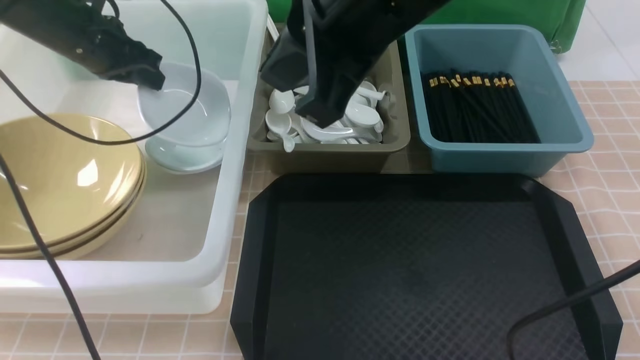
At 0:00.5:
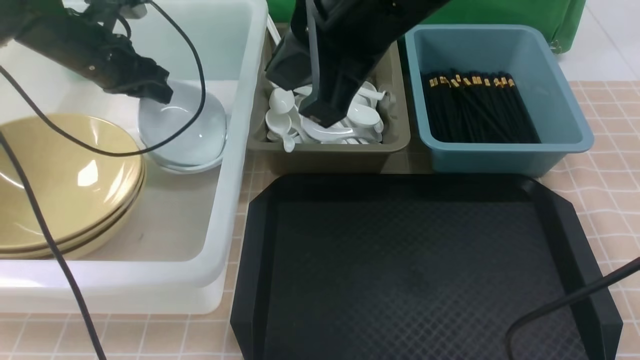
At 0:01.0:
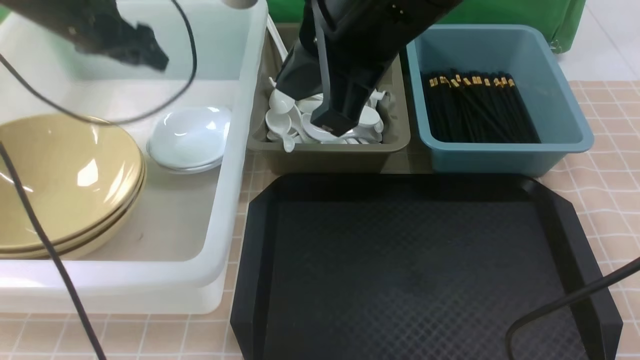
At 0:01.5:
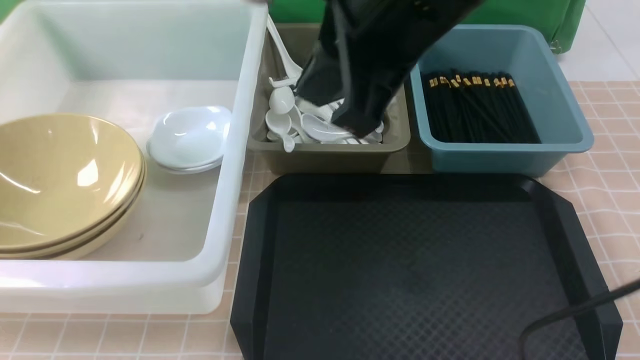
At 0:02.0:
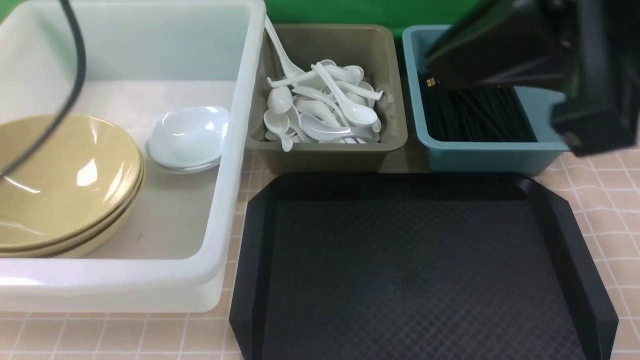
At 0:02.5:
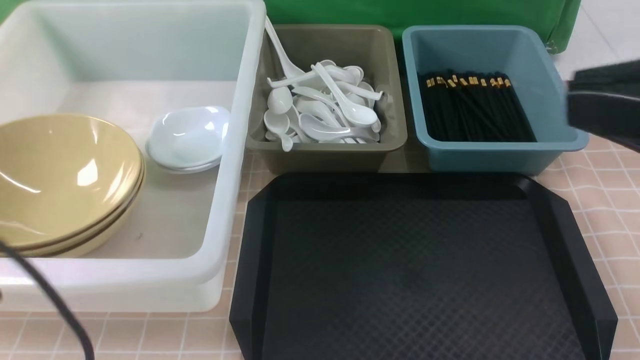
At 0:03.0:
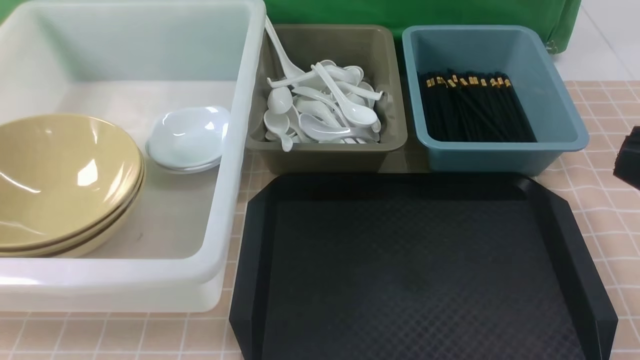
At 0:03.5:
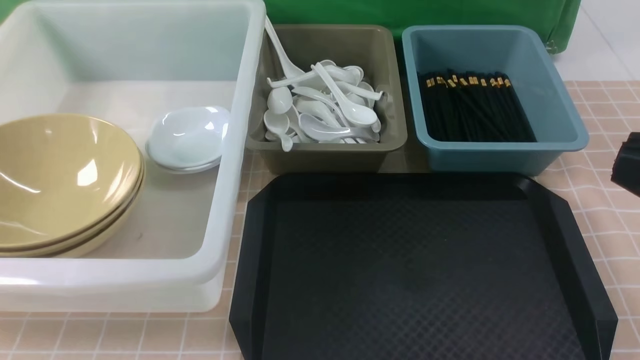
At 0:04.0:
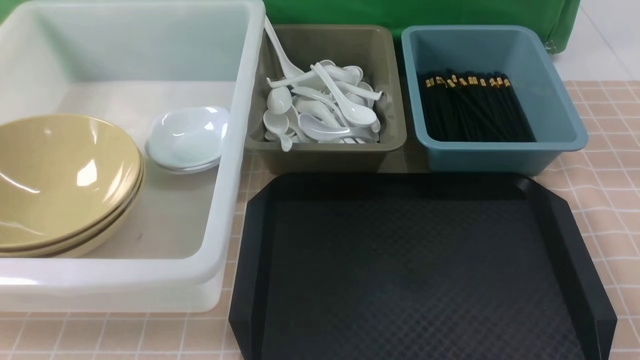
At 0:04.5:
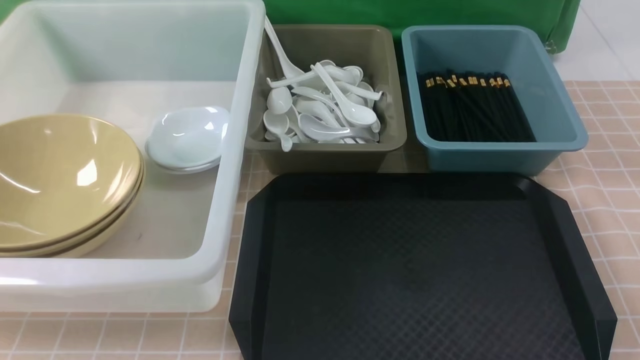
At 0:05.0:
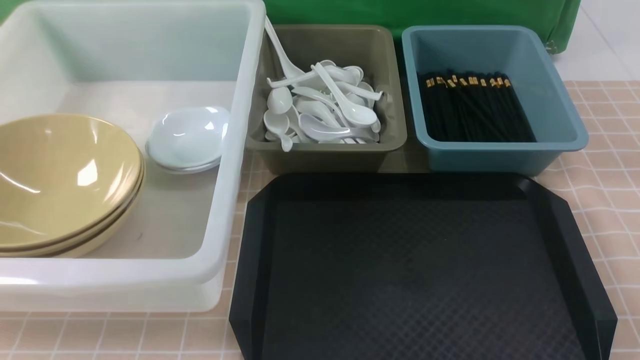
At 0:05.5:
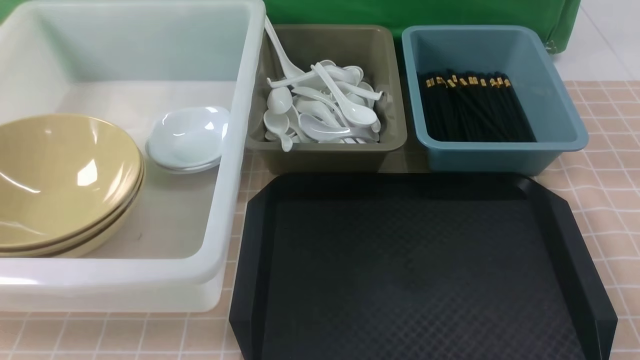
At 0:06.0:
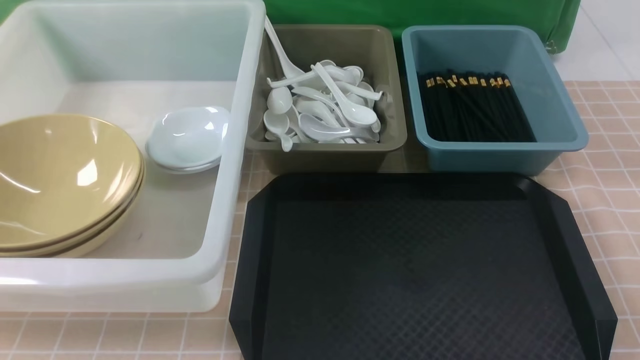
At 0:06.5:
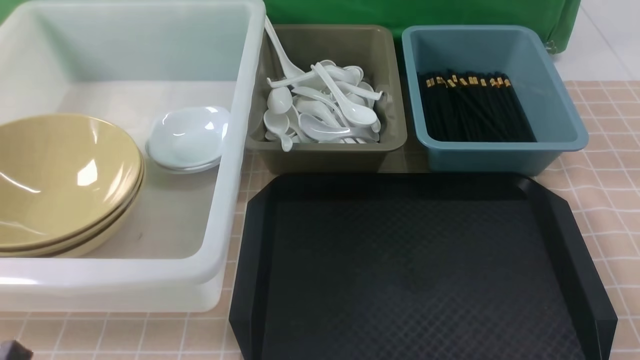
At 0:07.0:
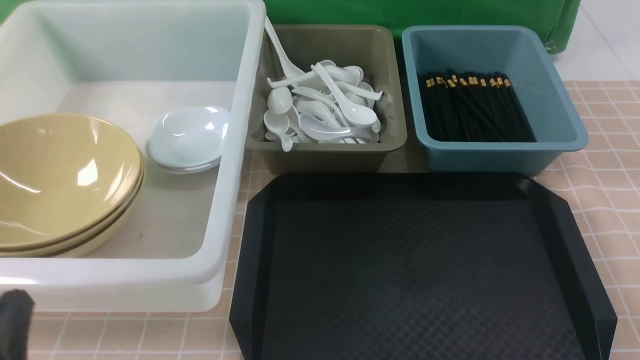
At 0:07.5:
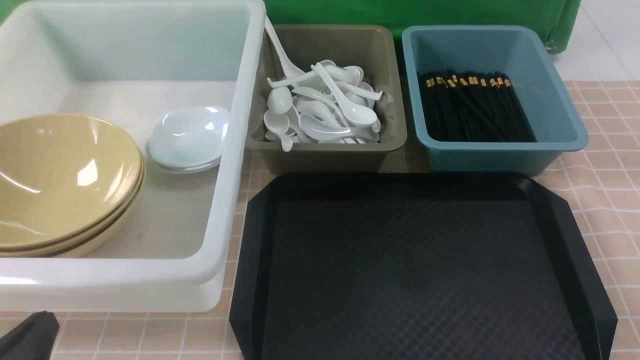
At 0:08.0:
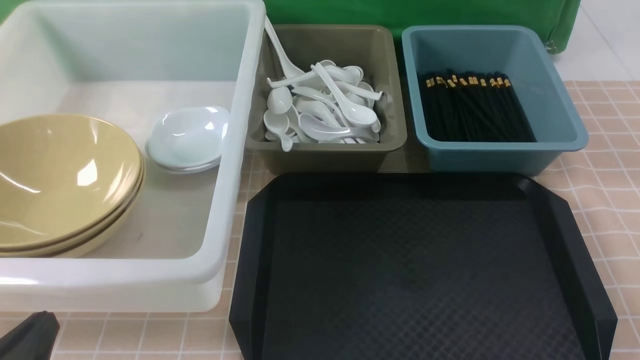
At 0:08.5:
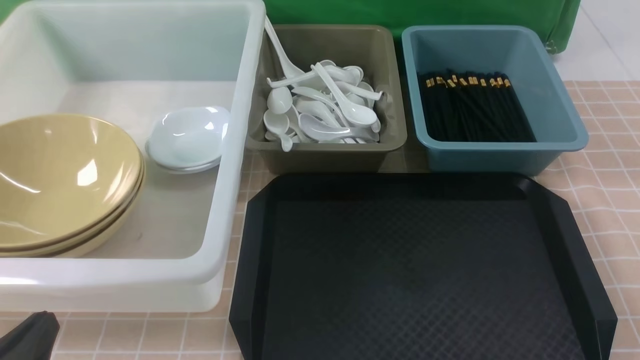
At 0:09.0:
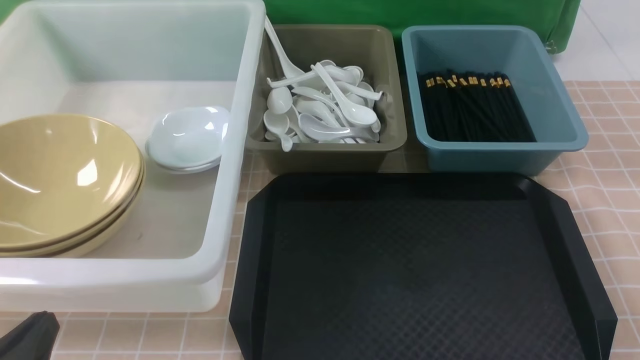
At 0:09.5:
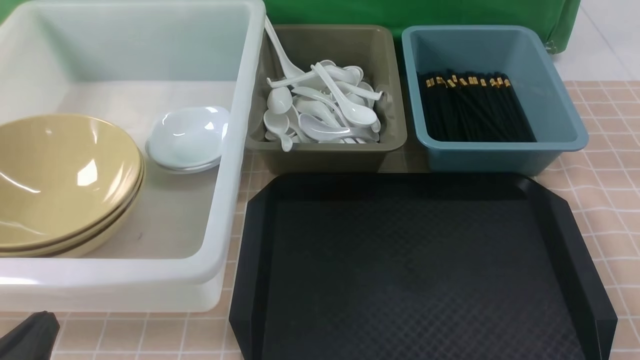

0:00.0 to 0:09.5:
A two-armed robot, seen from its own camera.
Task of the whole recording: on brown table put chopsticks spoon bowls plates into blue grey white boxes.
0:00.0 to 0:02.0: The left gripper heads backward and upward, covering roughly 35 cm, and opens and closes again, while the right gripper travels to the right and backward by approximately 15 cm.
0:02.0 to 0:04.0: The right gripper goes approximately 15 cm downward, to the right and backward. The left gripper is displaced downward and backward by approximately 25 cm.
0:05.5 to 0:07.5: The left gripper travels downward by roughly 10 cm.
0:07.5 to 0:09.5: Both grippers stay put.

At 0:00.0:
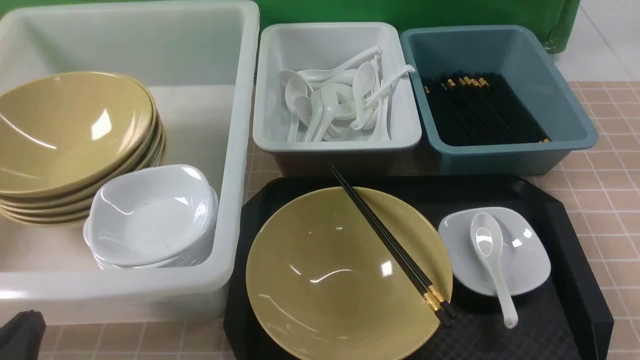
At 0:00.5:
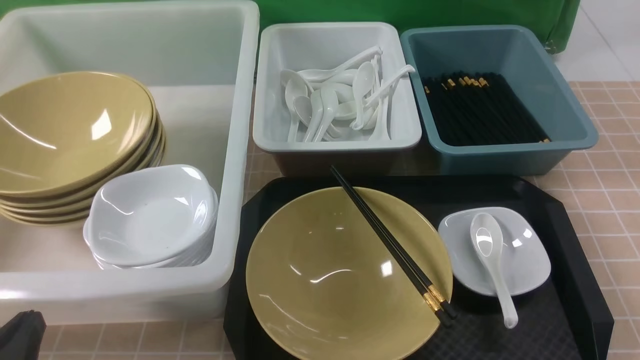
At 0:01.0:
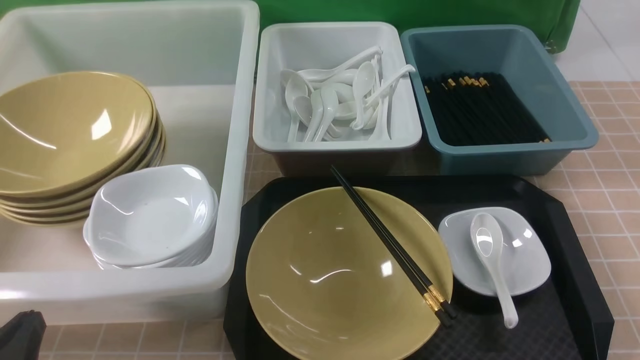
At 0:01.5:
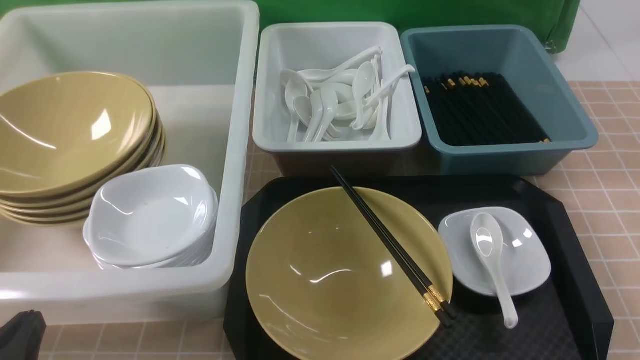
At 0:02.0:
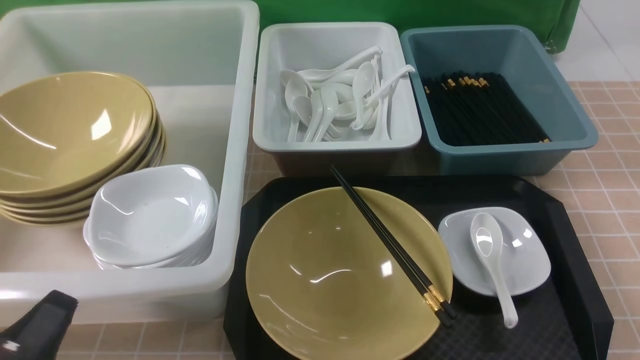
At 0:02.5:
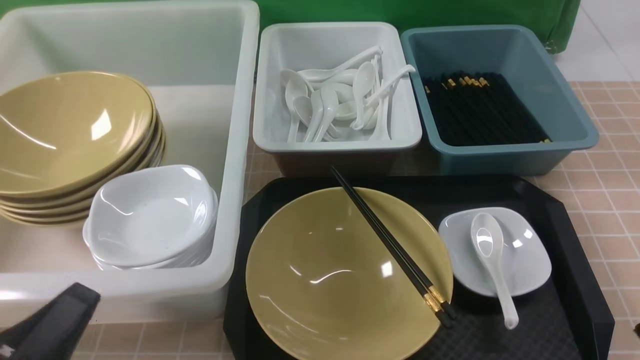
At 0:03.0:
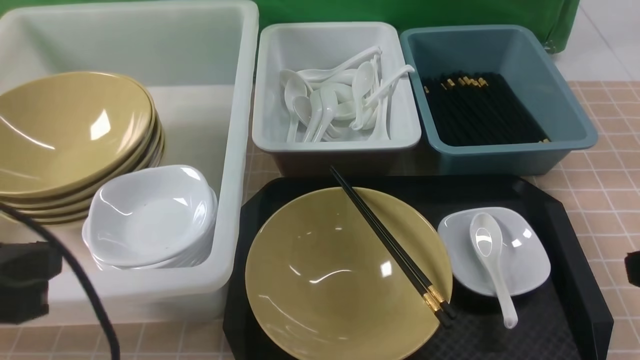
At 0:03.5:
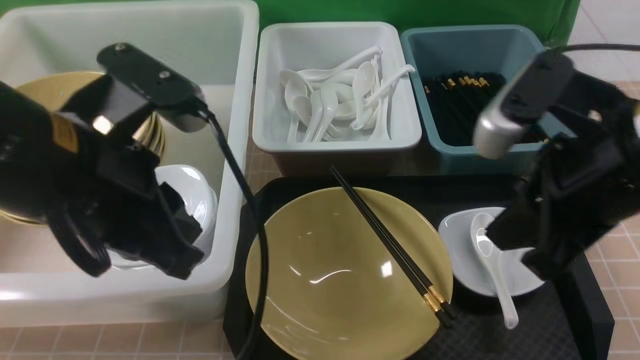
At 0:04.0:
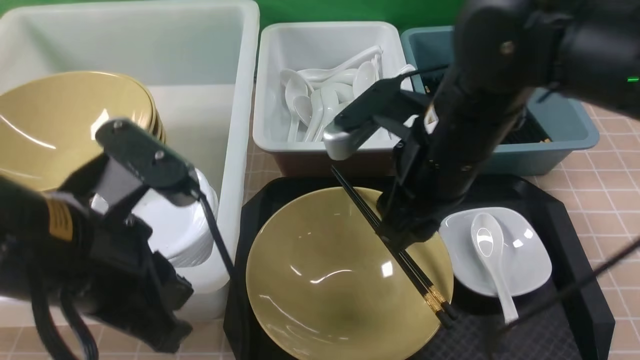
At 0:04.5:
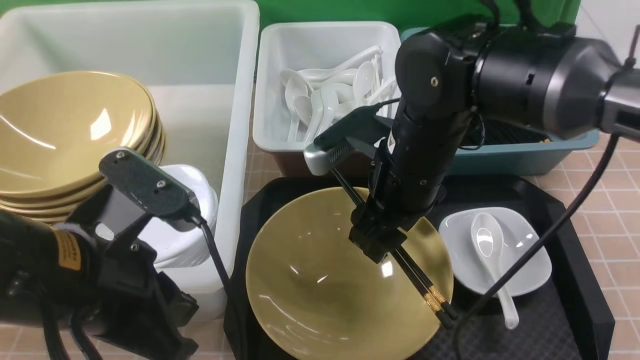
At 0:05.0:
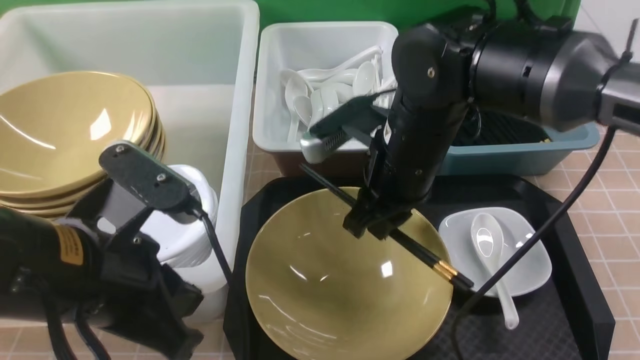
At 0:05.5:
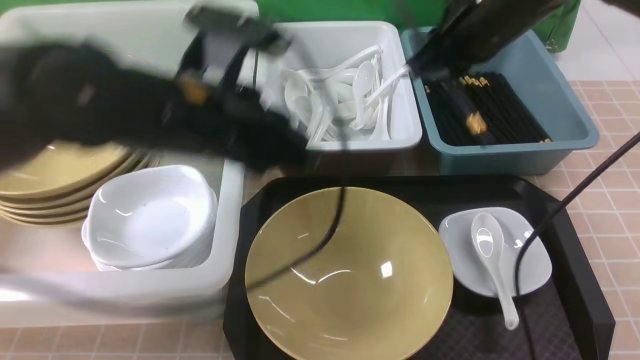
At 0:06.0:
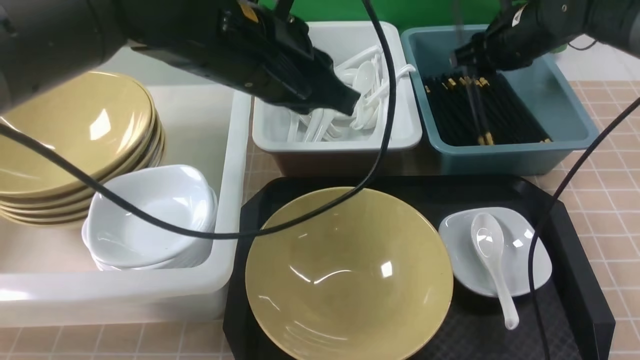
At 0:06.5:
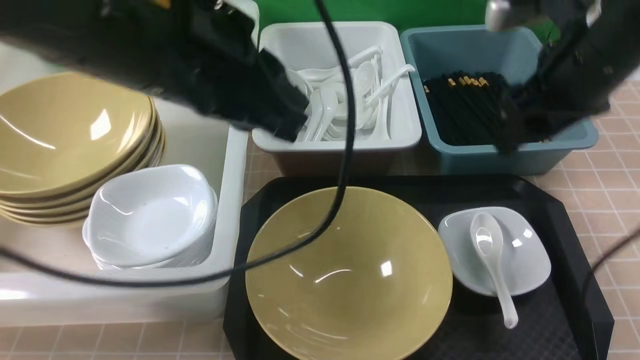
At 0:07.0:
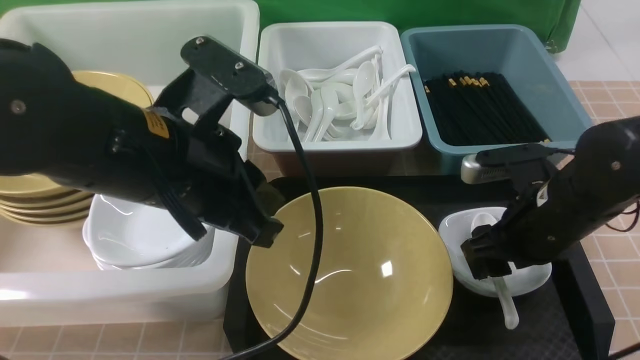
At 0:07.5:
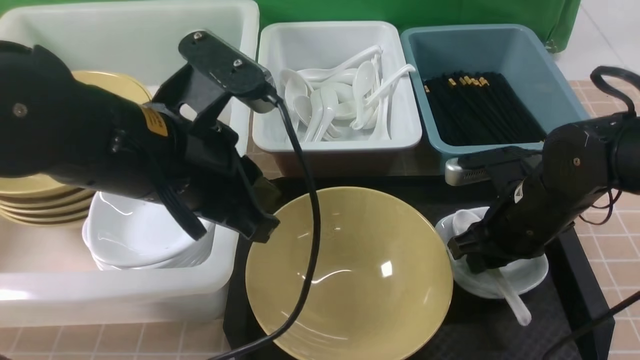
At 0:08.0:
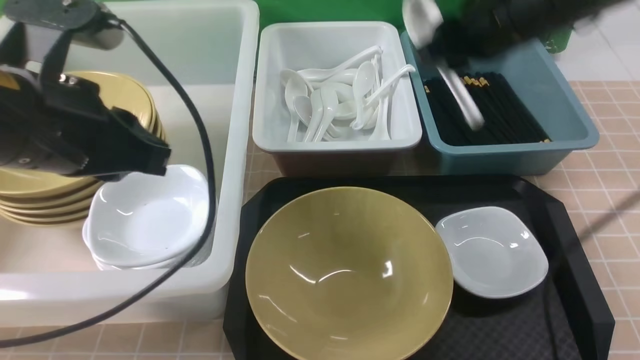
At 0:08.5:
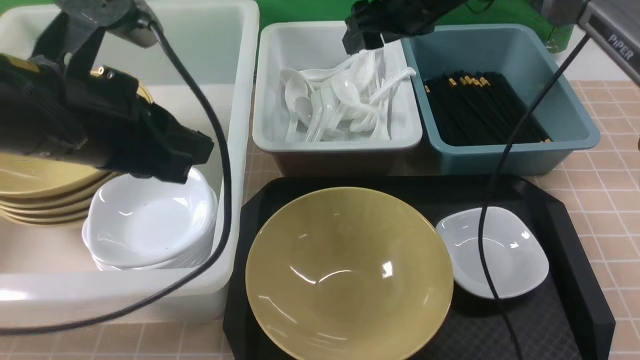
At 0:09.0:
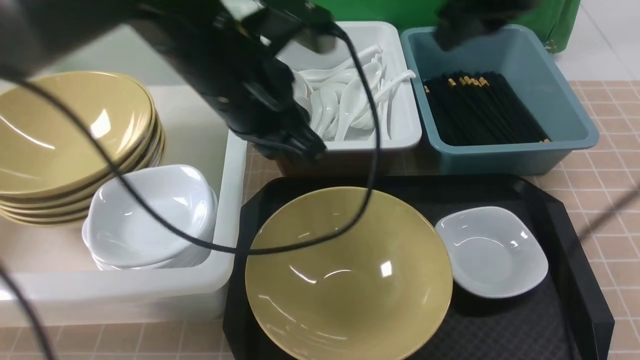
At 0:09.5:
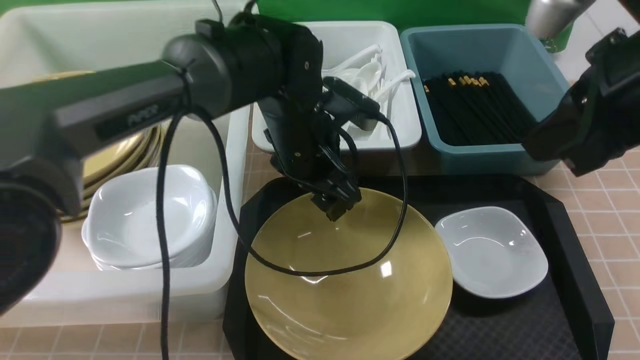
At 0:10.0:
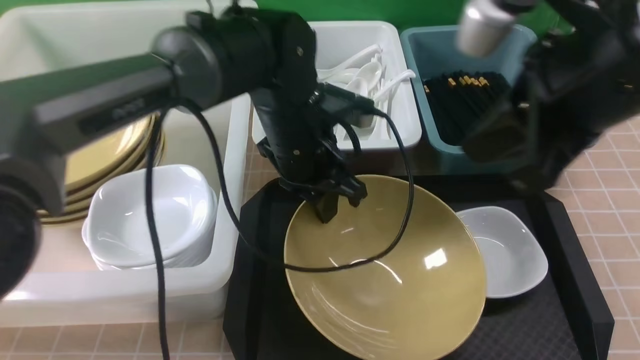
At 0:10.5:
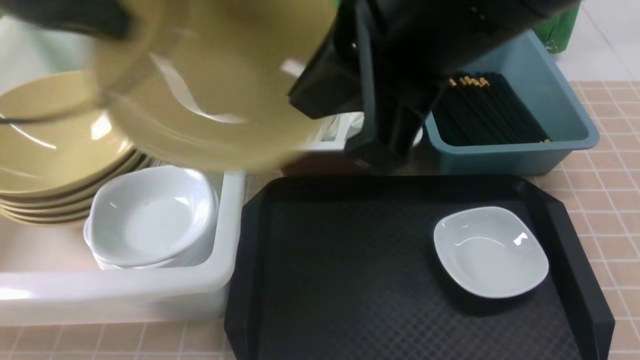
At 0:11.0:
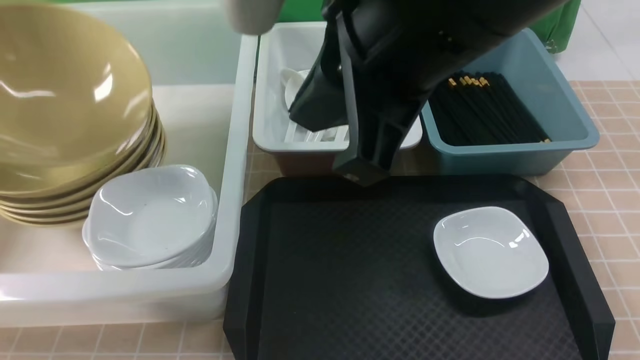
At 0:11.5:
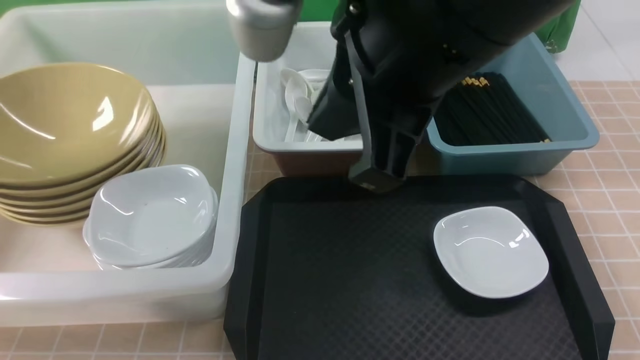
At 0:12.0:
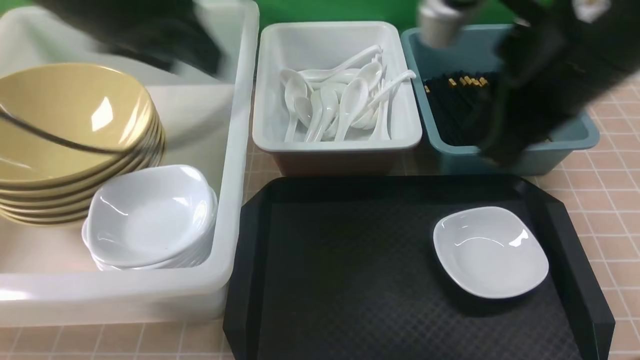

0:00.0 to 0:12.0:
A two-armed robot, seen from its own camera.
Task of the whole recording: on brown table put chopsticks spoon bowls plates into blue grey white boxes.
Step, 0:00.0 to 0:04.5: use the right arm to grab the chopsticks.
Step, 0:05.0 to 0:06.0: use the right arm to put the chopsticks into the small storage box on the right.
Step, 0:06.5 to 0:07.5: use the right arm to grab the soup spoon in the middle.
Step, 0:08.0 to 0:08.5: use the right arm to put the soup spoon into the small storage box in the middle.
Step, 0:09.0 to 0:09.5: use the left arm to grab the yellow noodle bowl on the left.
Step, 0:10.0 to 0:11.5: use the left arm to put the noodle bowl into the large storage box on the left.
0:02.0 to 0:04.0: The left gripper goes some 20 cm upward, forward and to the right. The right gripper travels forward, to the left and upward by approximately 35 cm, and opens up.
0:04.0 to 0:06.0: Both grippers travel together forward and to the right, approximately 20 cm. The right gripper closes, then reopens.
0:06.0 to 0:08.0: The left gripper travels to the left and backward by roughly 15 cm, while the right gripper heads to the left, backward and upward, covering approximately 10 cm, and opens and closes again.
0:08.0 to 0:10.0: The right gripper goes some 20 cm backward and upward, and closes up, while the left gripper goes approximately 20 cm to the right, forward and downward, and opens, then closes once more.
0:10.0 to 0:12.0: The right gripper travels to the left and back again, some 10 cm each way. Meanwhile the left gripper heads upward, covering roughly 15 cm, goes to the left and returns, about 35 cm each way, and opens up.
